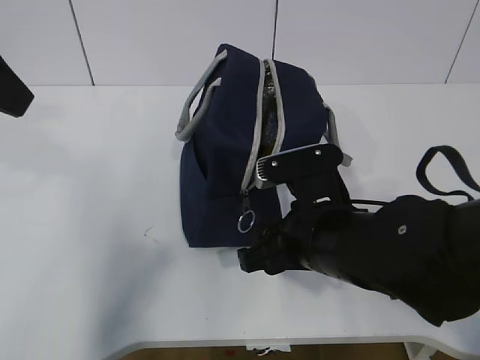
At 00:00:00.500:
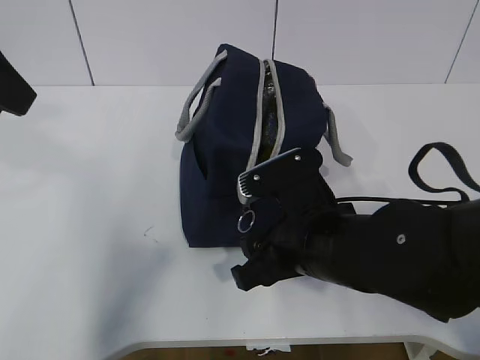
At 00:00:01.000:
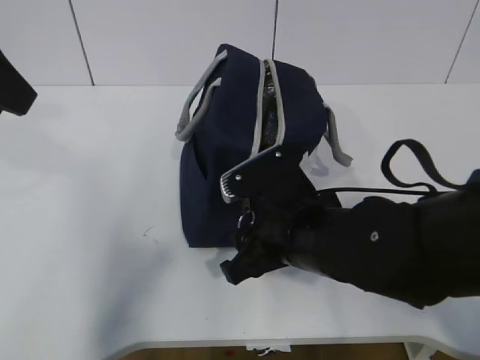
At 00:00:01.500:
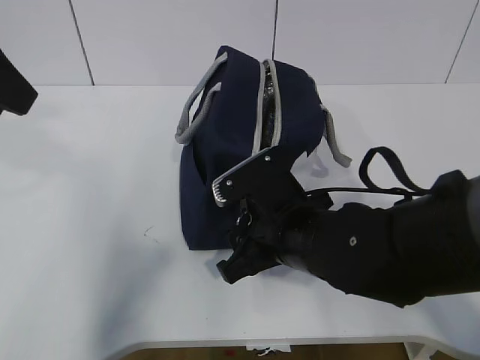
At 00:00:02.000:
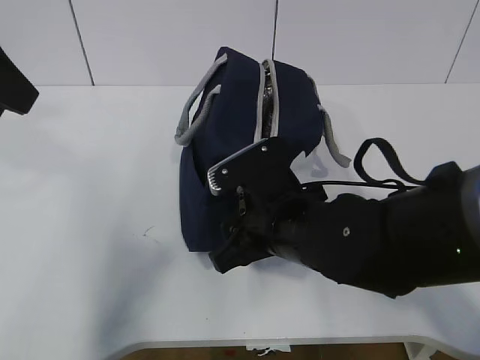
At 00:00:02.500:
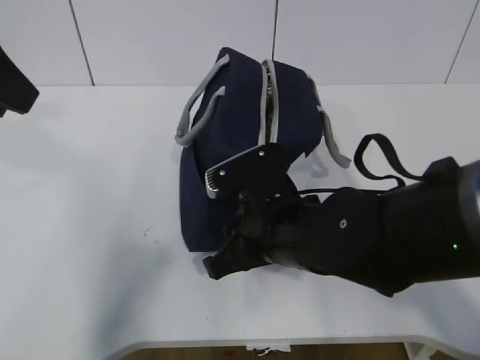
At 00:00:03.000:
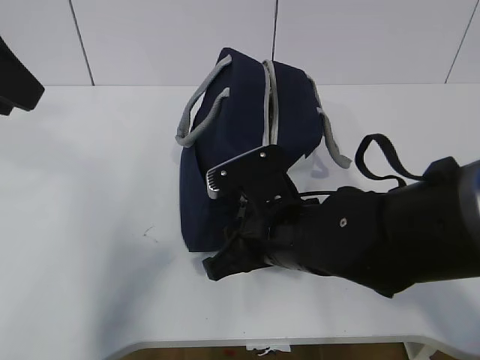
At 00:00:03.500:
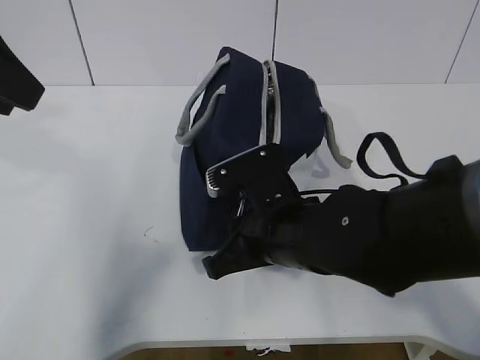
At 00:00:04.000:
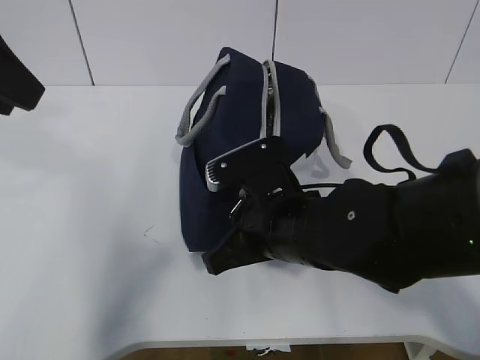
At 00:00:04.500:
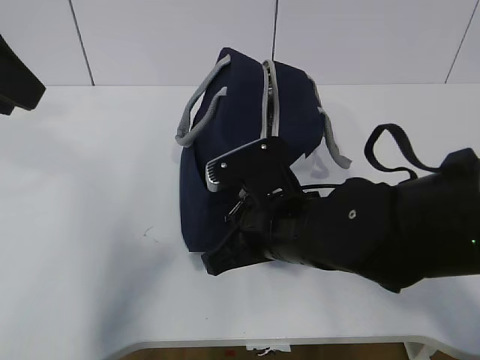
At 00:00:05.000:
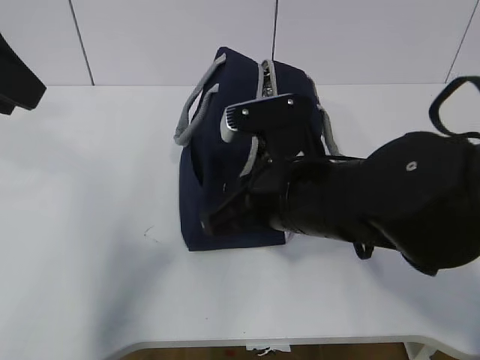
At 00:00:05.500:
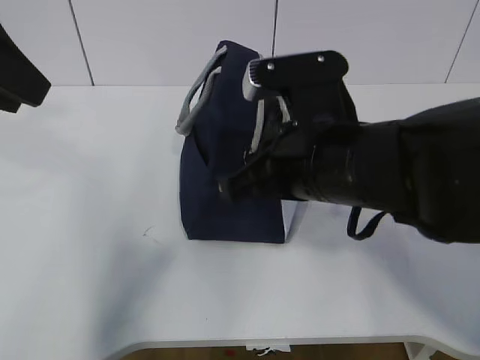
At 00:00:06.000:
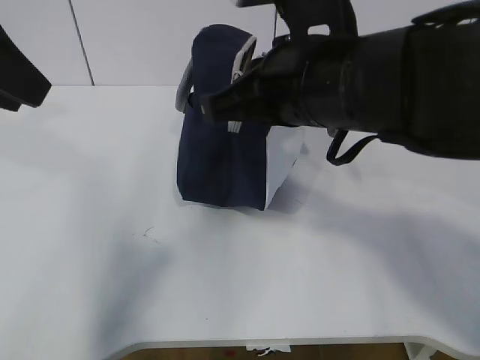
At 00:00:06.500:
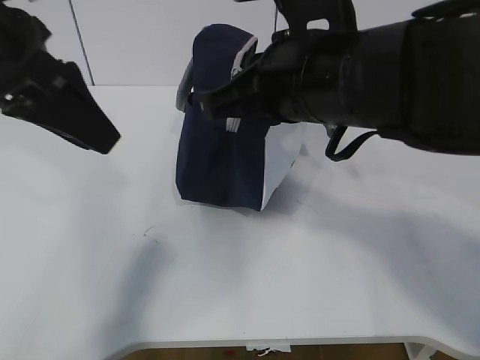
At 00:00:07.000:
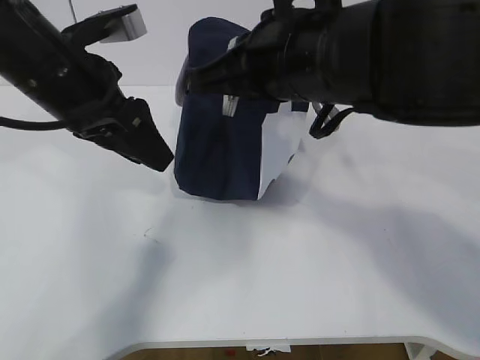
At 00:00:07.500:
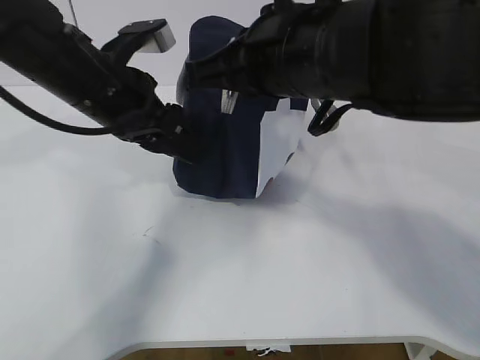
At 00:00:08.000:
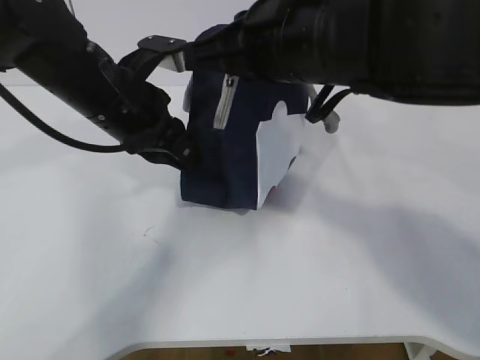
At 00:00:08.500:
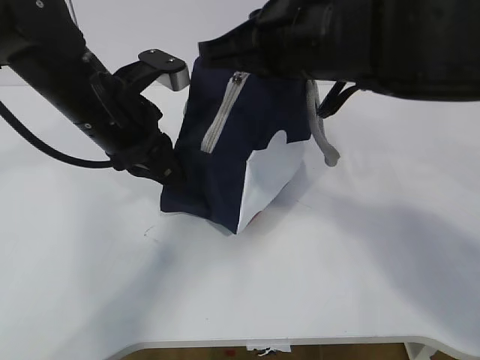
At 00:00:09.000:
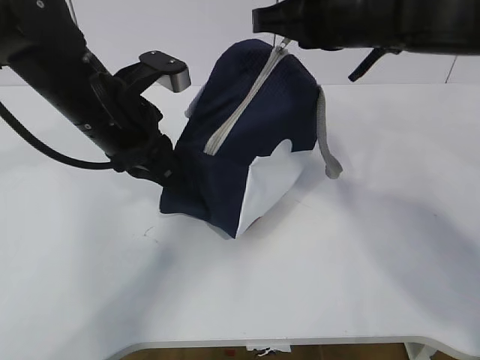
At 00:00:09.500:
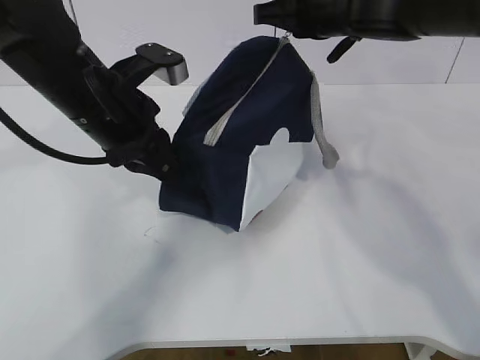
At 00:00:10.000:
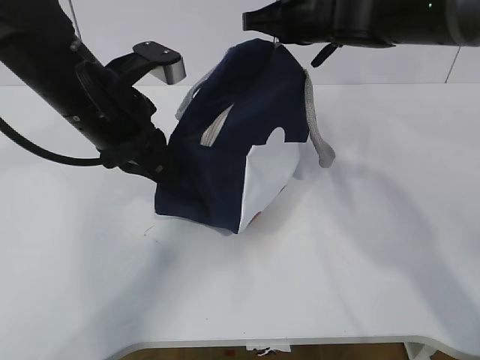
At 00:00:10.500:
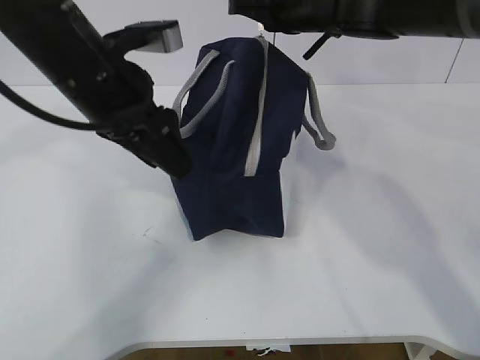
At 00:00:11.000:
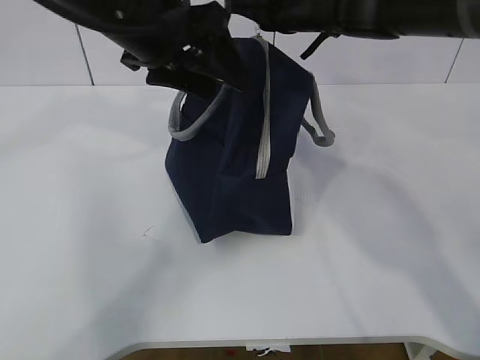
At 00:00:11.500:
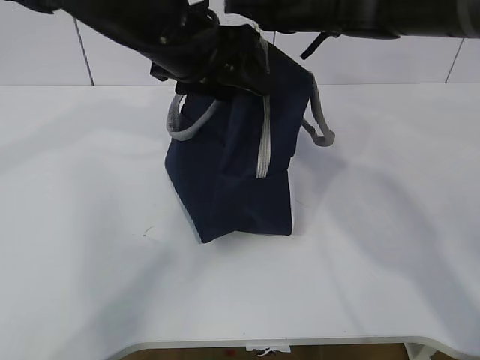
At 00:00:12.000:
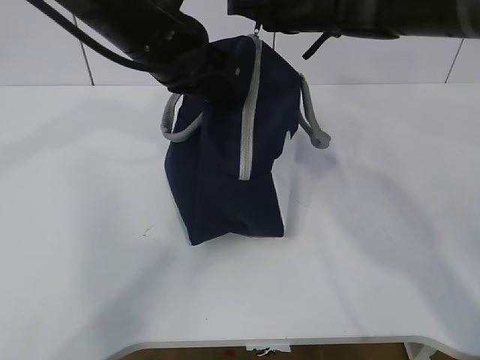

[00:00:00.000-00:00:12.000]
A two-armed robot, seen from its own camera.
Step, 00:00:04.000 to 00:00:11.000: Pull the zipper with your right hand.
00:00:00.000 to 00:00:02.000: There are only small adjustments of the grippers.
00:00:02.000 to 00:00:04.000: The right gripper closes.
00:00:04.000 to 00:00:06.000: The right gripper moves upward, some 15 cm.
00:00:06.000 to 00:00:08.000: The left gripper goes about 20 cm downward, to the right and forward, and closes up.
00:00:08.000 to 00:00:10.000: The right gripper moves forward, approximately 15 cm.
00:00:10.000 to 00:00:12.000: The left gripper changes place by roughly 10 cm, and opens and closes again.

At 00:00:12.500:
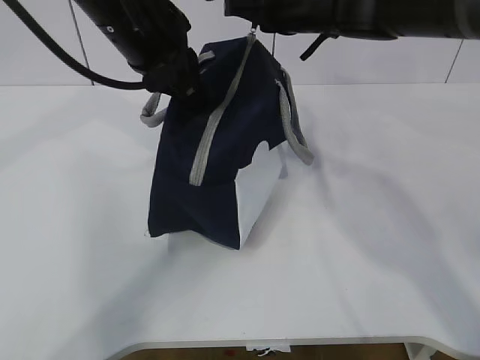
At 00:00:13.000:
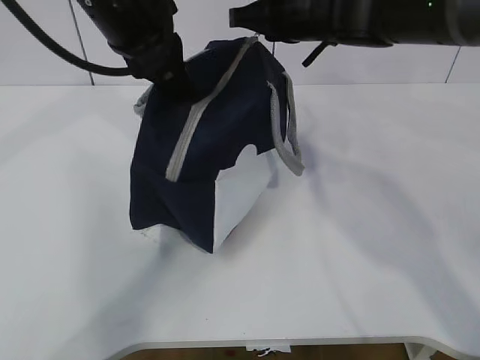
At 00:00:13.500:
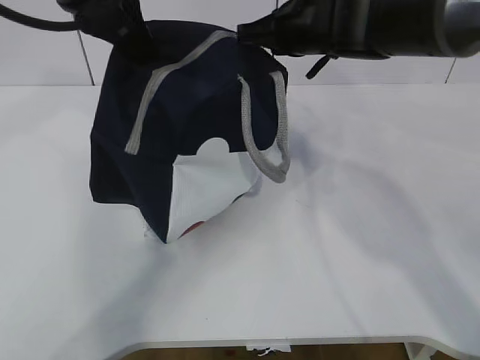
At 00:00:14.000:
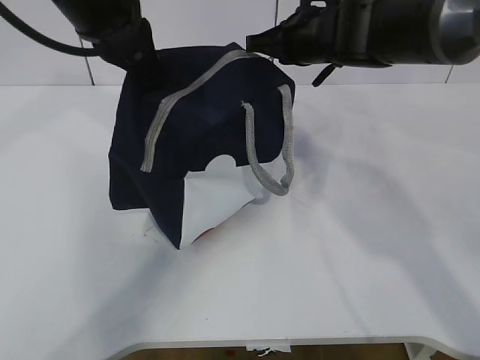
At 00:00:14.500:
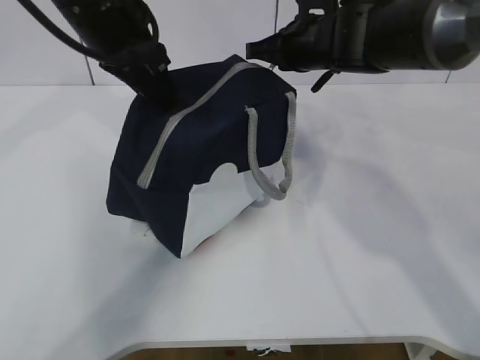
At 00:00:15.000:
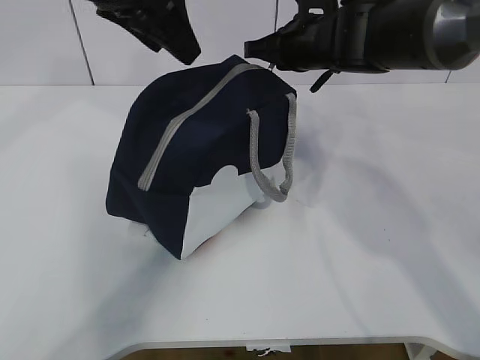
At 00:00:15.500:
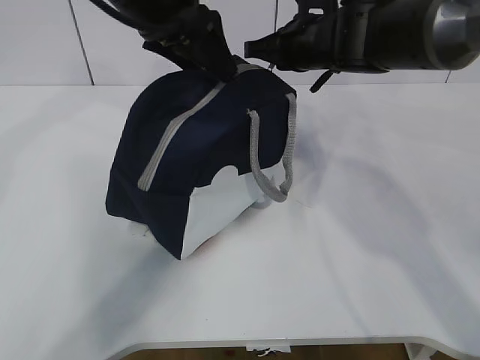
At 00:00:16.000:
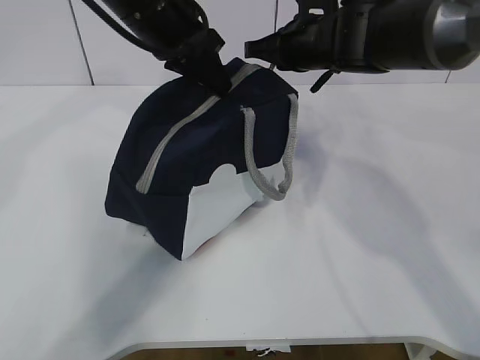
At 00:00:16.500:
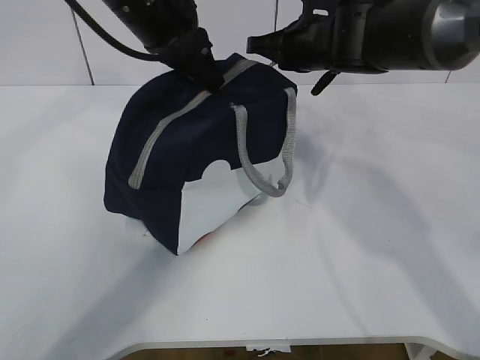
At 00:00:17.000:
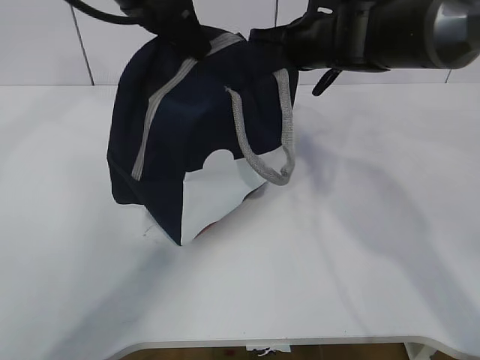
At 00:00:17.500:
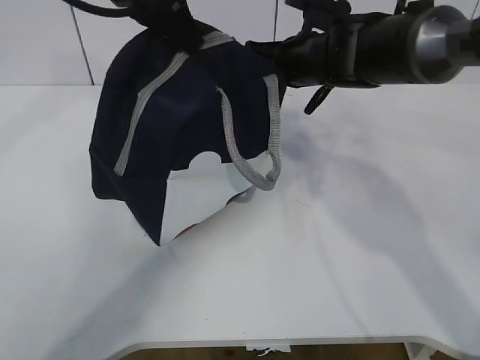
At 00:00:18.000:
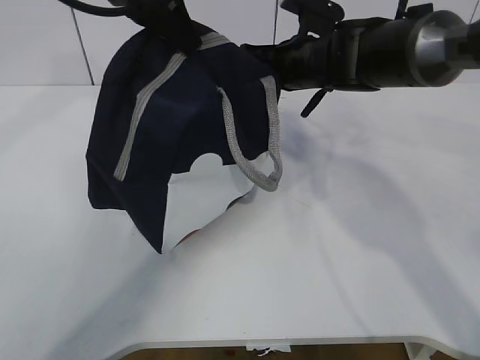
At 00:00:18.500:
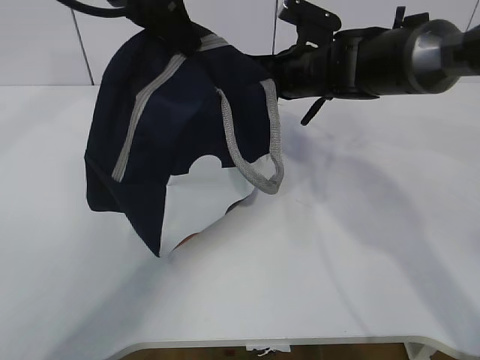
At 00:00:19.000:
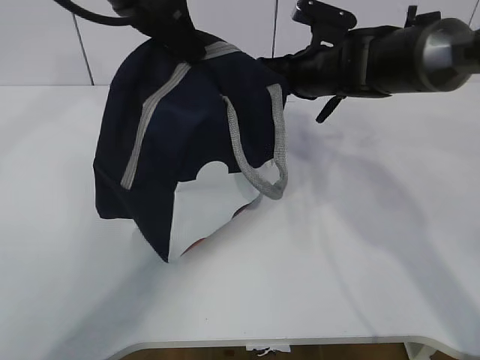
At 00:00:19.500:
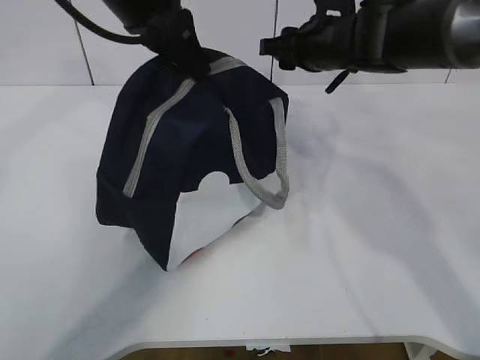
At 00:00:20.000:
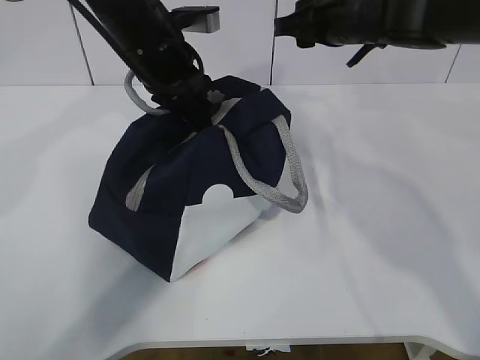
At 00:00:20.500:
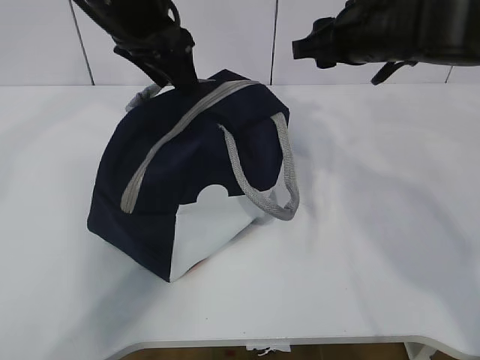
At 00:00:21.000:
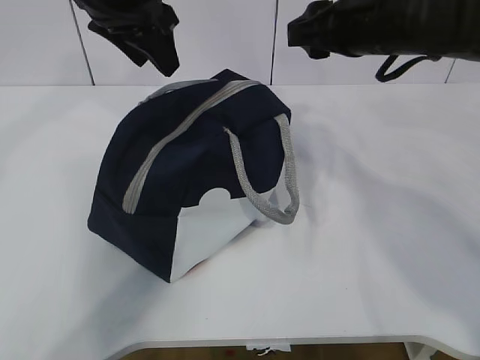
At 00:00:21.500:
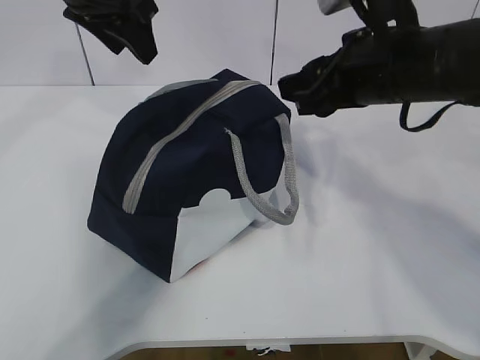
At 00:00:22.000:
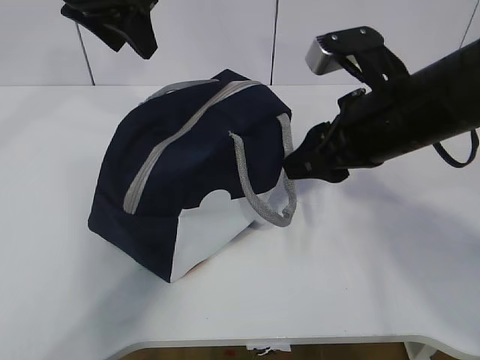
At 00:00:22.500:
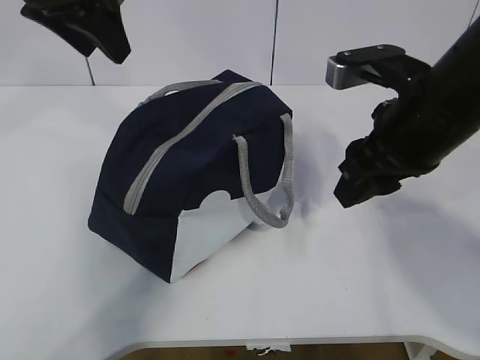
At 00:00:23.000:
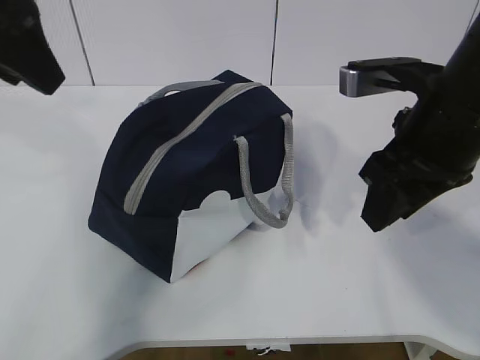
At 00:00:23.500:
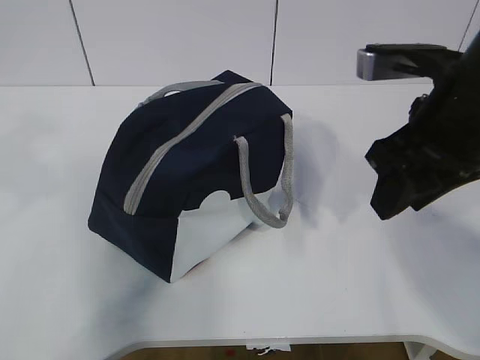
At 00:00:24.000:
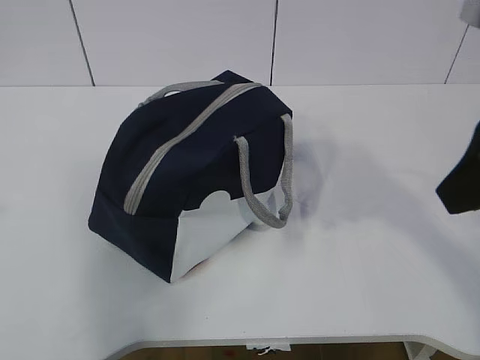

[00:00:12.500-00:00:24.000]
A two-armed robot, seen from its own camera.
00:00:12.500 to 00:00:14.500: The right gripper shifts approximately 5 cm downward; the left gripper opens up.
00:00:14.500 to 00:00:16.500: The left gripper closes its fingers.
00:00:16.500 to 00:00:18.500: The left gripper is displaced upward by approximately 5 cm.
00:00:18.500 to 00:00:20.000: The right gripper moves upward, some 10 cm, and opens up. The left gripper is displaced downward by about 10 cm.
00:00:20.000 to 00:00:22.000: The left gripper is displaced upward and to the left by roughly 10 cm, and opens its fingers. Meanwhile the right gripper heads backward, covering approximately 15 cm.
00:00:22.000 to 00:00:24.000: The left gripper shifts about 30 cm backward and to the left, while the right gripper is displaced backward, upward and to the right by roughly 15 cm.

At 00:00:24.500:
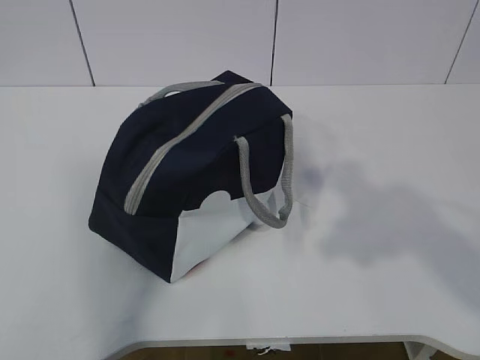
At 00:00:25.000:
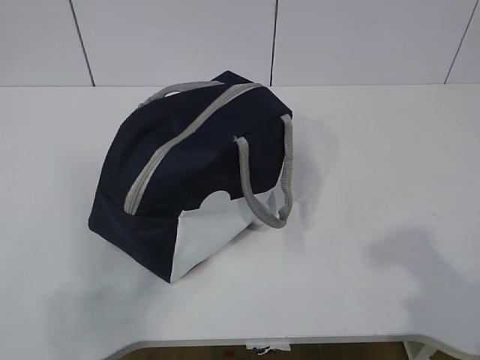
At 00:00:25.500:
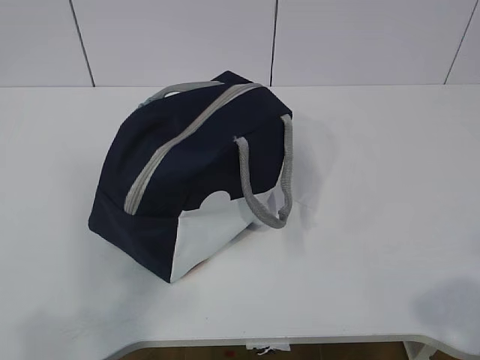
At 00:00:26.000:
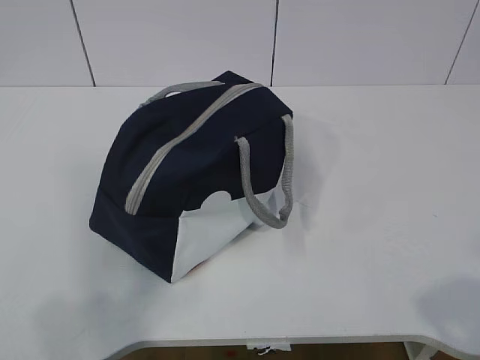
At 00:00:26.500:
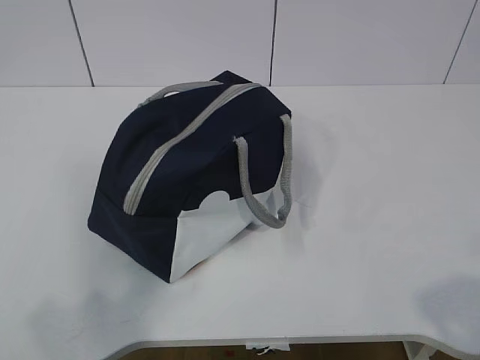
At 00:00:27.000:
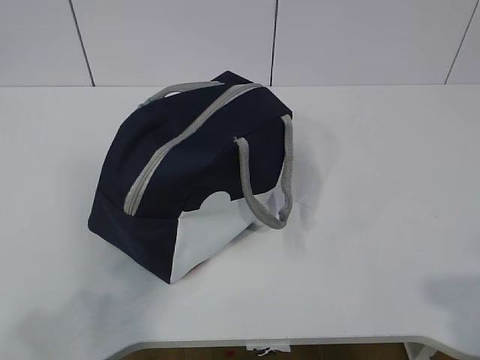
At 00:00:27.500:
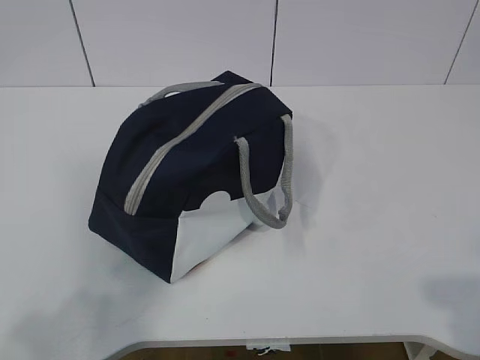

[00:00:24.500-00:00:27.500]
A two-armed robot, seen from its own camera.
00:00:24.500 to 00:00:26.000: The right gripper shifts some 15 cm backward, downward and to the right.
